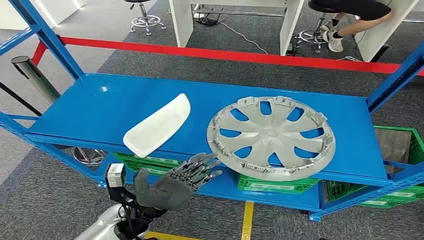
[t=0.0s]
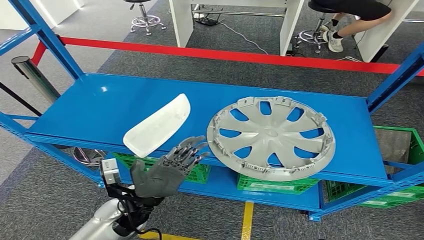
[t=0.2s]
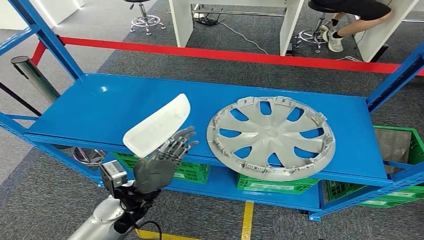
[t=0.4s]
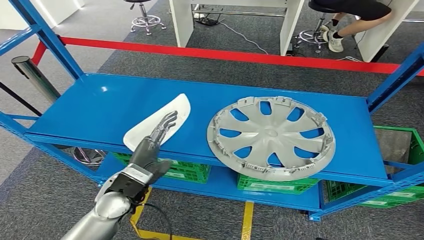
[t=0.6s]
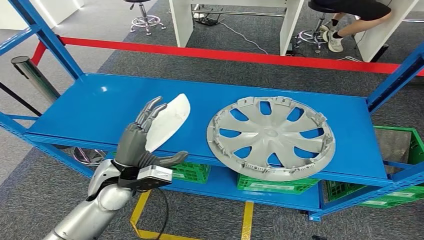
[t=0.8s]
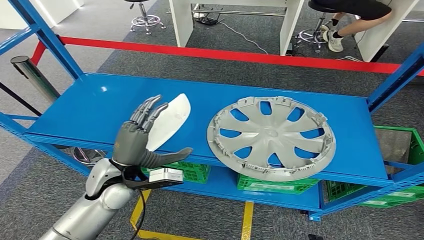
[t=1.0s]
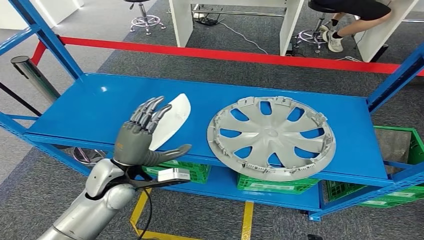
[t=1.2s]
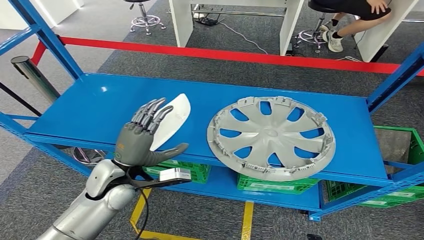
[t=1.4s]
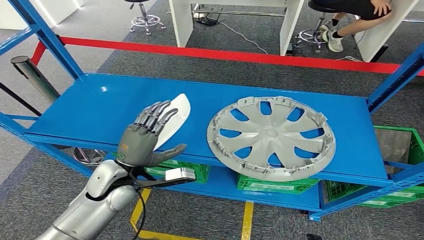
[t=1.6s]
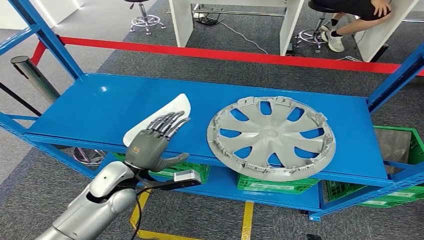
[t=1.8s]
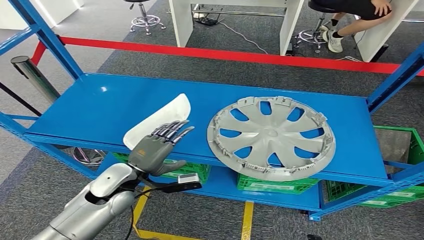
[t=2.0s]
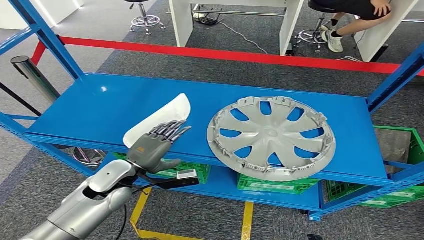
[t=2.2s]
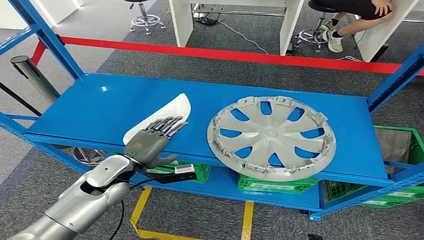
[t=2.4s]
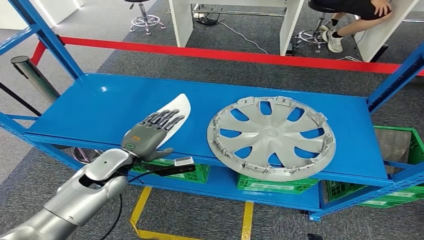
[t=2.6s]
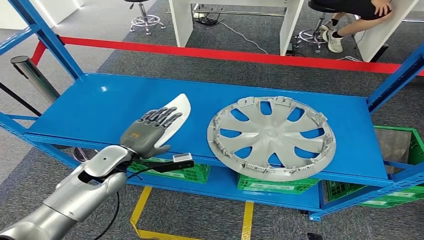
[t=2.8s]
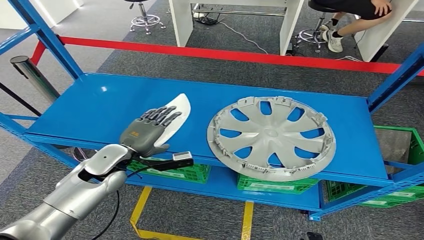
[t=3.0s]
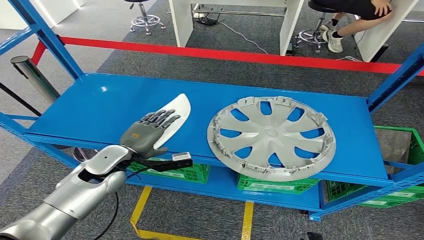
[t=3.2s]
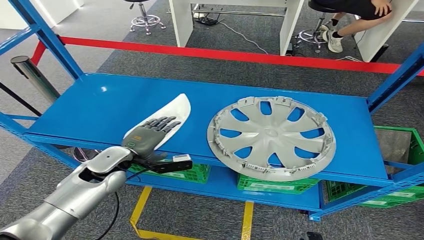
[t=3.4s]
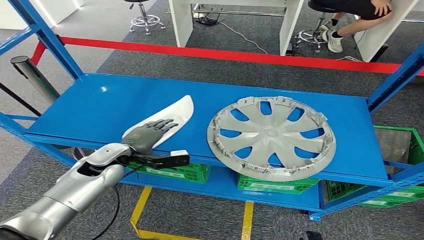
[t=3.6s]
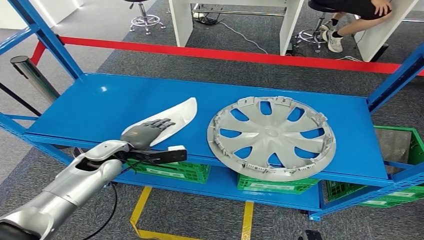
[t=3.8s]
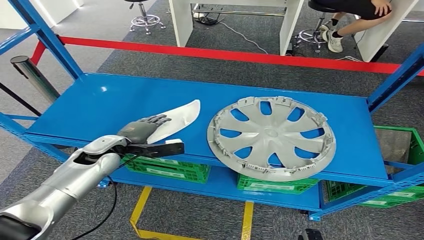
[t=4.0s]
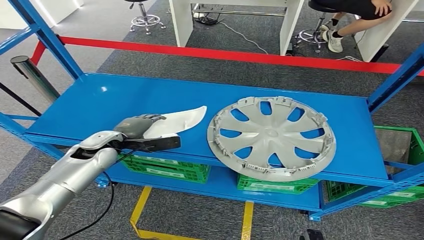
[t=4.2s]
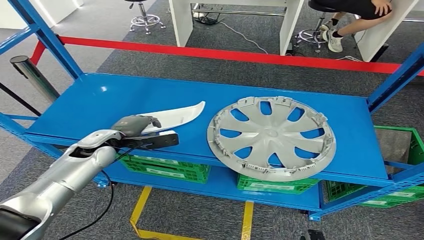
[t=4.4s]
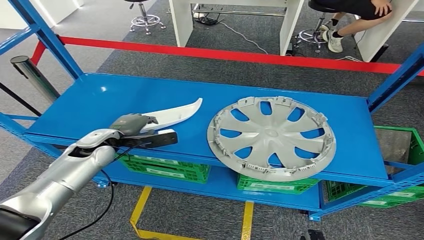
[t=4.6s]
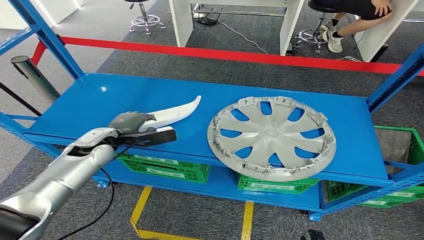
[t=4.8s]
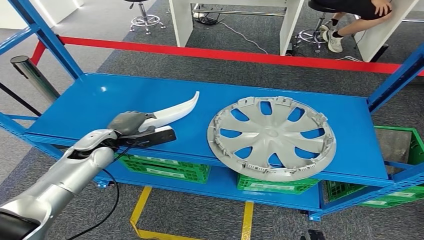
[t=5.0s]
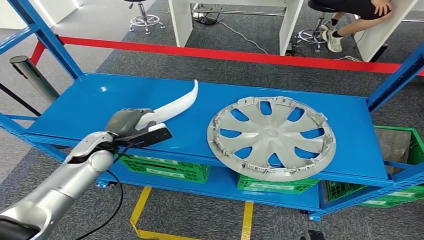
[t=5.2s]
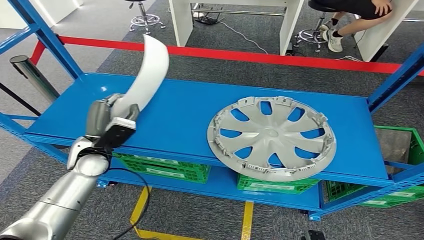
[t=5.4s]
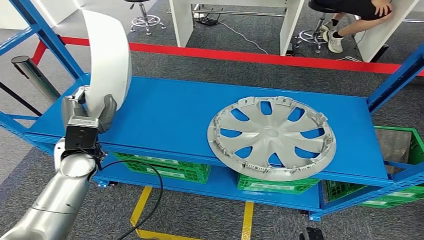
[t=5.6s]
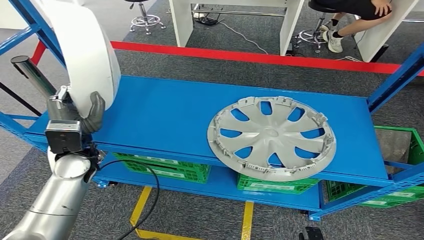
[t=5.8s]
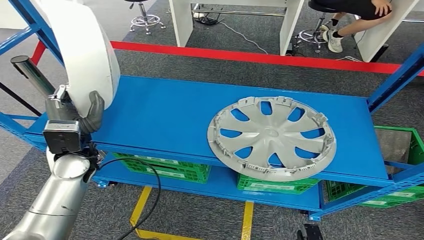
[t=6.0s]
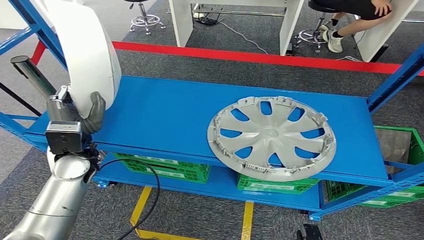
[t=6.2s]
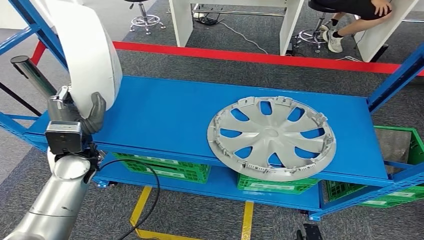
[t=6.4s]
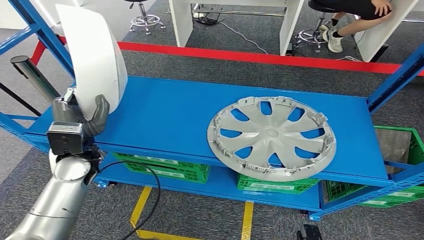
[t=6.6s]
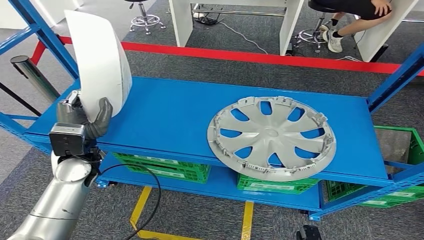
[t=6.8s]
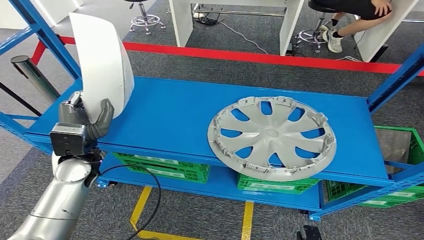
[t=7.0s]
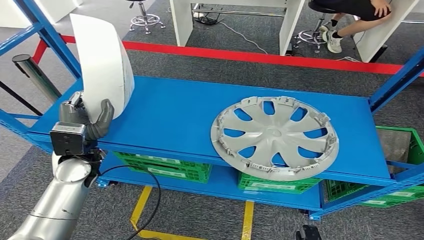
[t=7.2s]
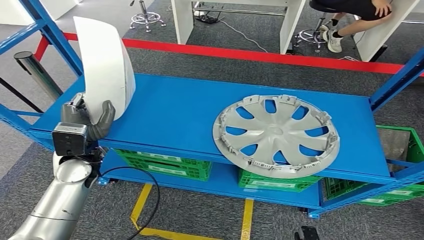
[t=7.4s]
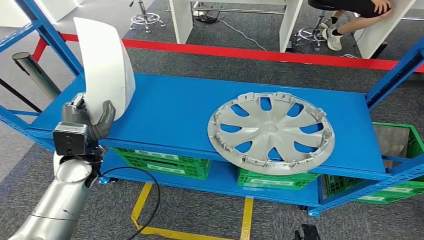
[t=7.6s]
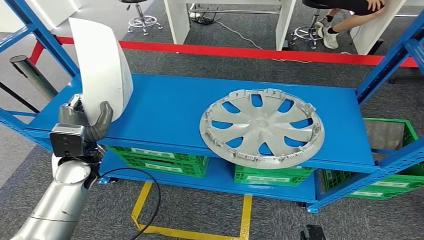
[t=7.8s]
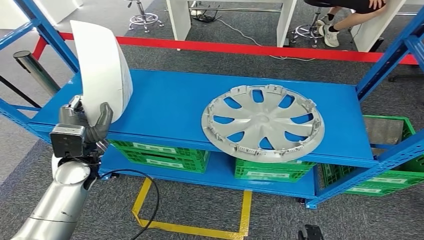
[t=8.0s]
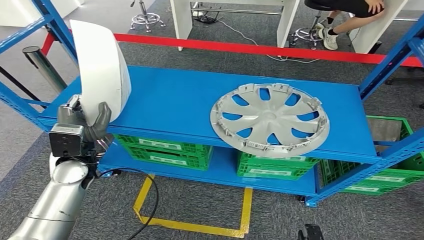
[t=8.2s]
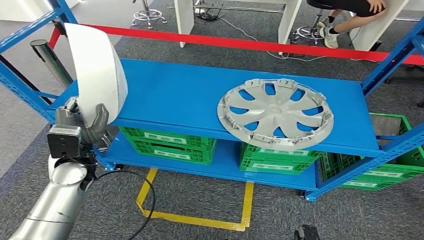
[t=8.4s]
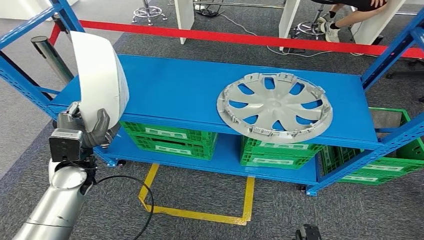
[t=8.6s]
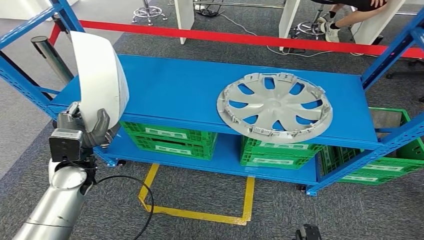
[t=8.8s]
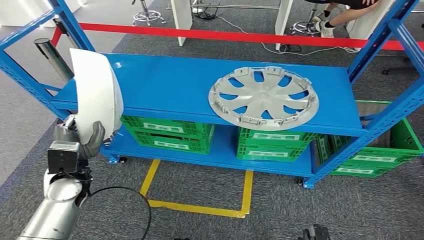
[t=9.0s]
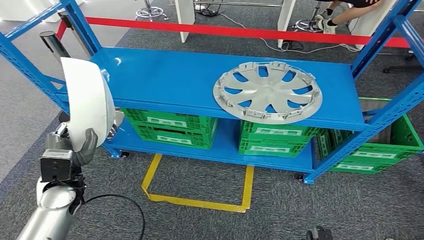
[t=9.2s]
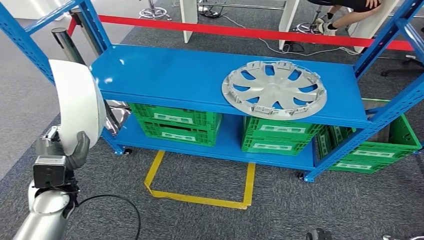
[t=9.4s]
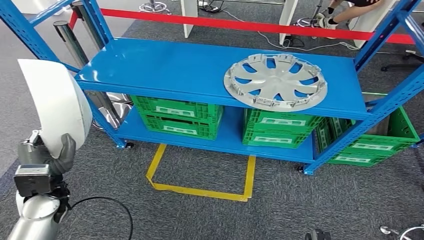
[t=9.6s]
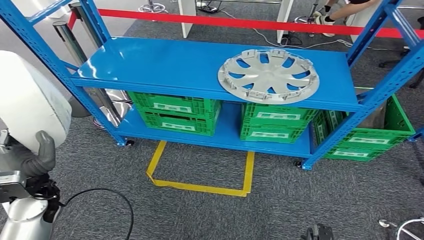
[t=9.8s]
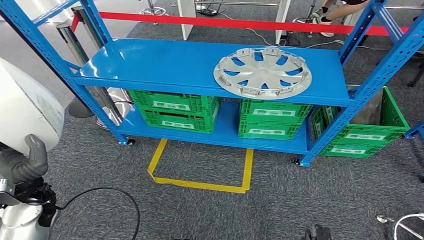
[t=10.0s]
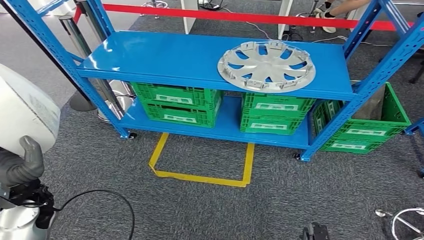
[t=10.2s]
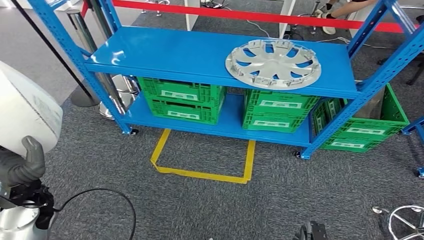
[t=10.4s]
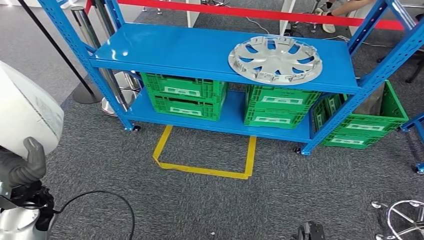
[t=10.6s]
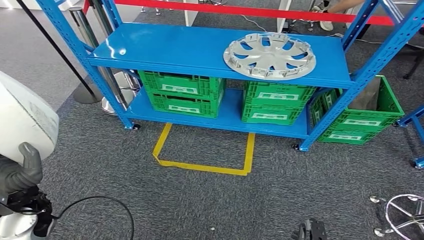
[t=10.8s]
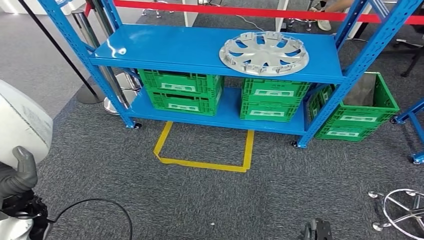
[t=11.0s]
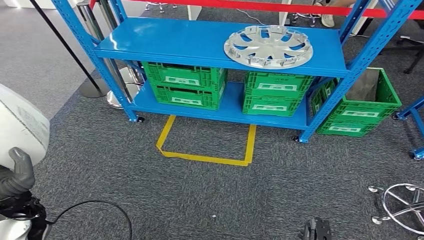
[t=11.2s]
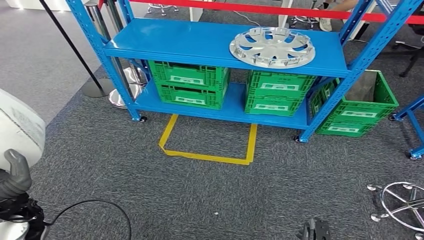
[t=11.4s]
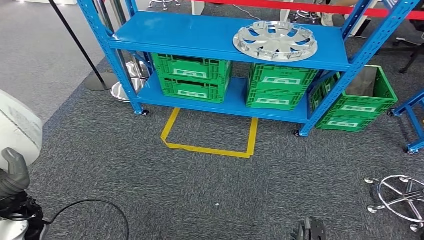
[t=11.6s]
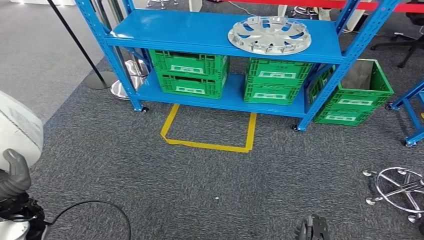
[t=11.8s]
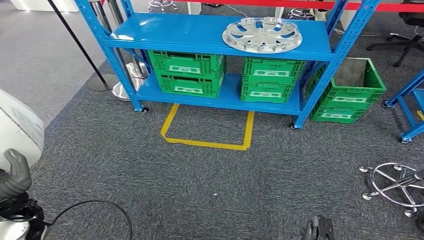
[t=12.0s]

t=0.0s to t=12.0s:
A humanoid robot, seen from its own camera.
Step, t=0.0s to t=8.8s: Pick up the small component from the shelf.
t=1.6s to t=3.0s: The left hand changes place by about 5 cm.
t=3.0s to t=4.4s: The left hand is displaced forward by roughly 5 cm.
t=4.4s to t=6.0s: The left hand shifts about 5 cm backward.

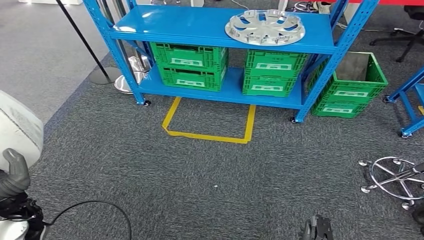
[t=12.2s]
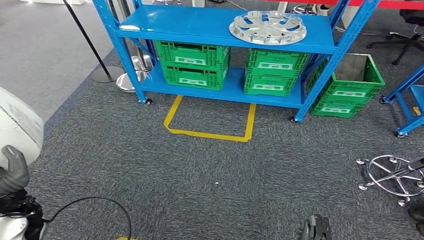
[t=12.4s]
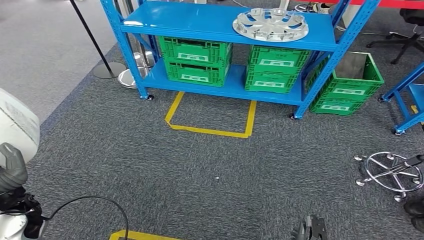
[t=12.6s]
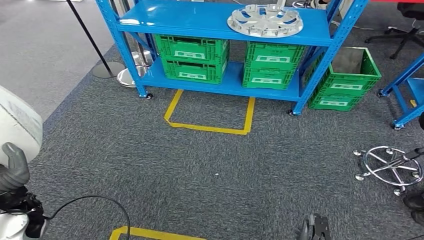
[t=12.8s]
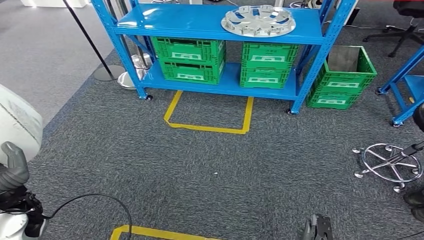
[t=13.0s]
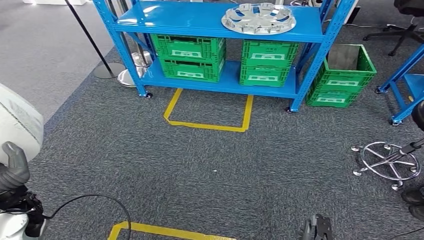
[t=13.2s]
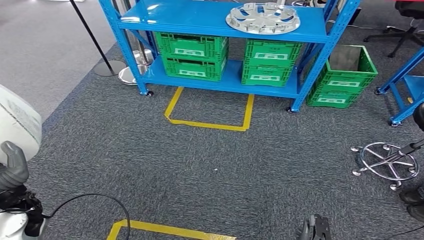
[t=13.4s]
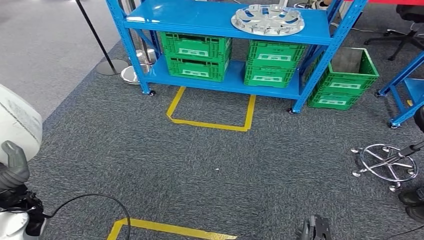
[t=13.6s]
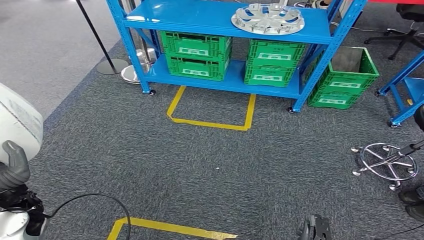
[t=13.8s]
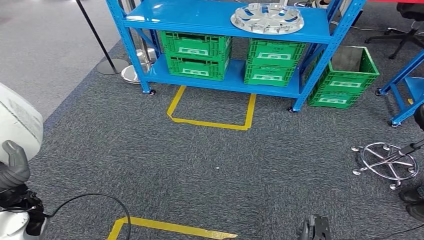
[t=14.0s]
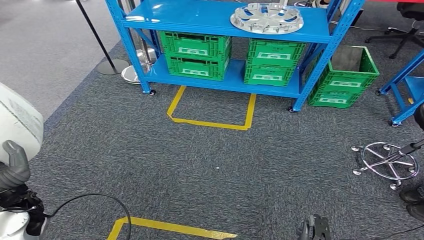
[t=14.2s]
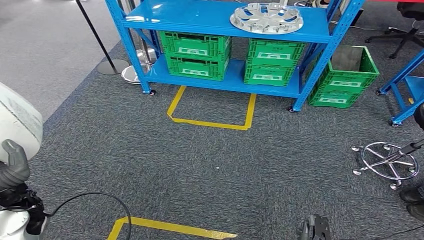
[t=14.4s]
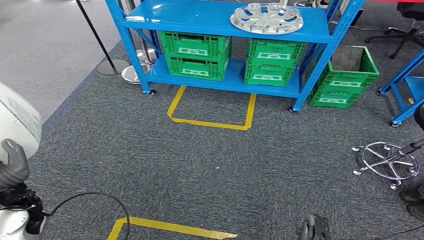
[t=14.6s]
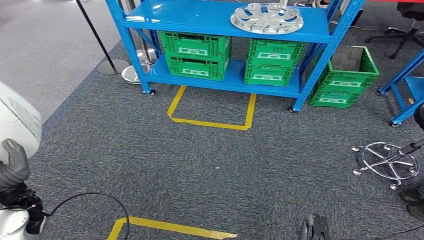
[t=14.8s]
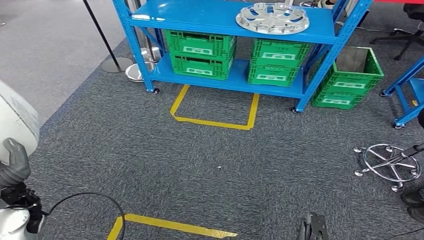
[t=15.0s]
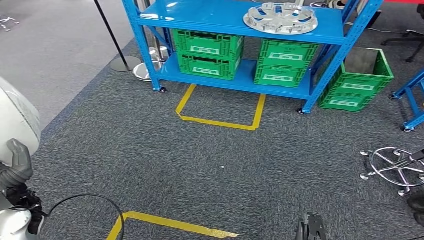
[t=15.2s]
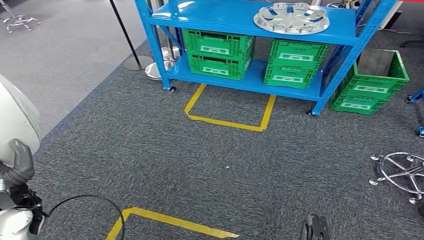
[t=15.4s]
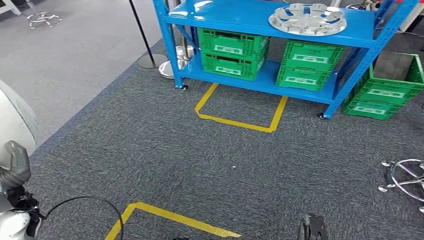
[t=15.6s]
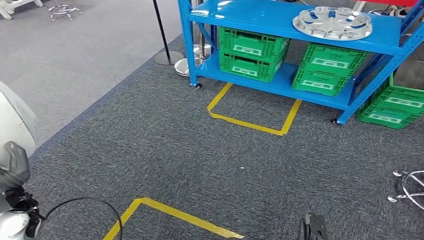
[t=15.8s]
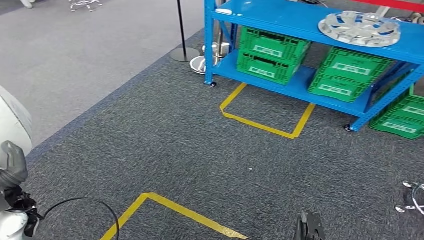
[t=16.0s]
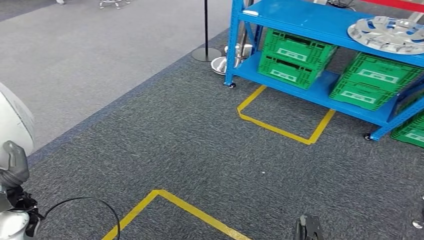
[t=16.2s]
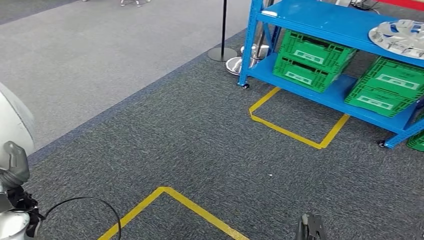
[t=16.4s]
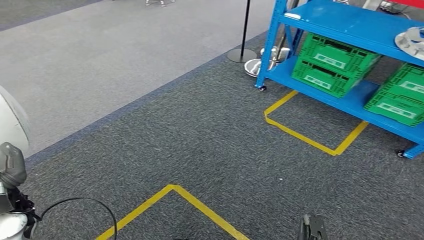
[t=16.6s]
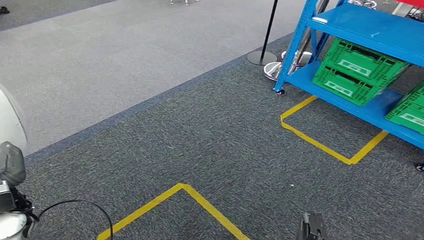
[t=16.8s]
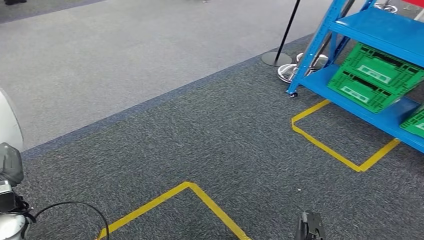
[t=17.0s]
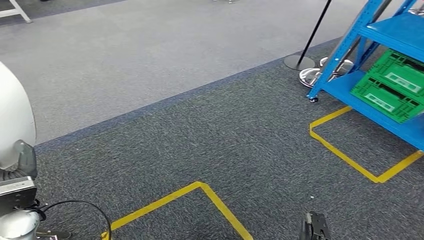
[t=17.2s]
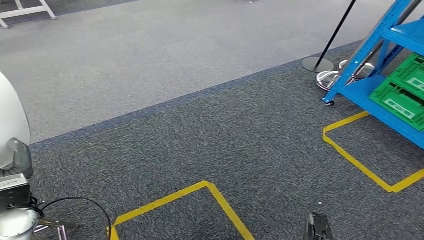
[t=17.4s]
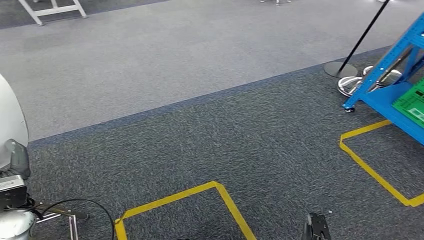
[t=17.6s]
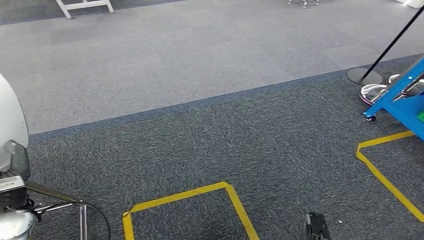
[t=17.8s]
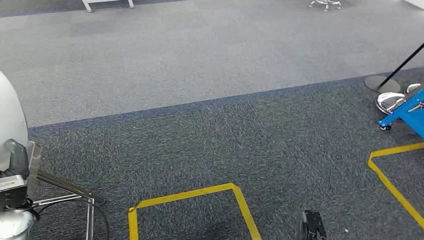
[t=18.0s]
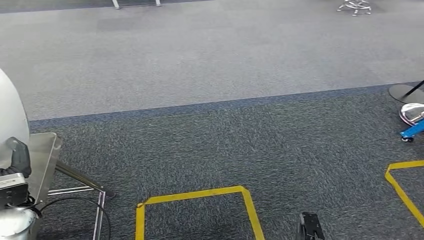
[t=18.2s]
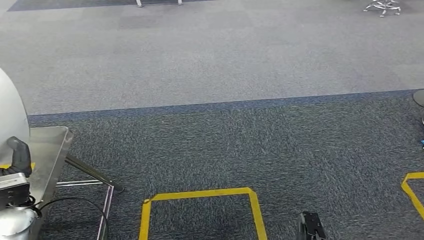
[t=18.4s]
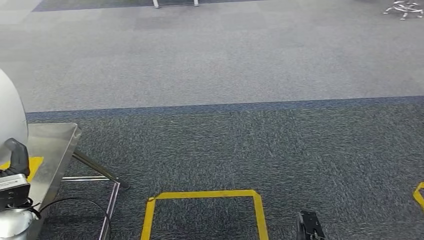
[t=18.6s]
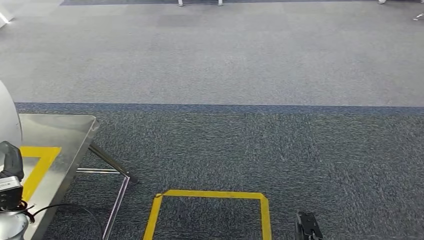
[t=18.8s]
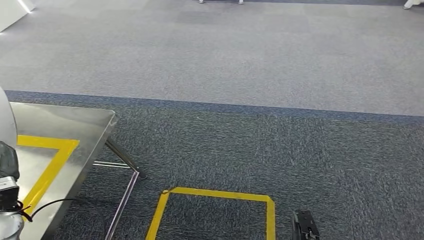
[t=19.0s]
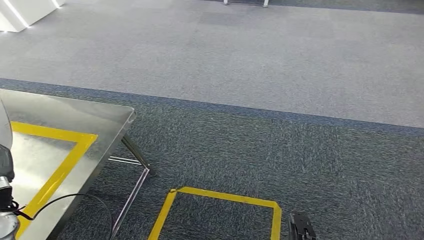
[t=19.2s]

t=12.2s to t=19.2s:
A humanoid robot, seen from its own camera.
t=13.6s to t=15.0s: The hands stay close to where they were, moving slightly.
